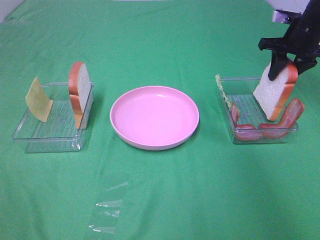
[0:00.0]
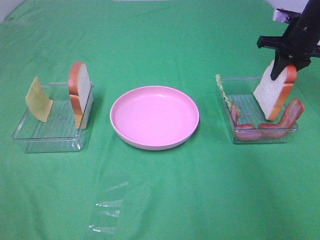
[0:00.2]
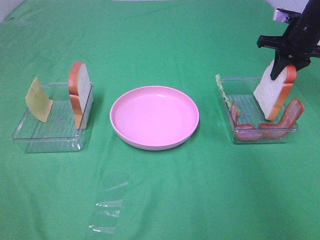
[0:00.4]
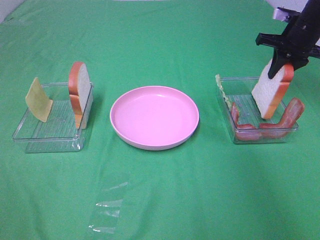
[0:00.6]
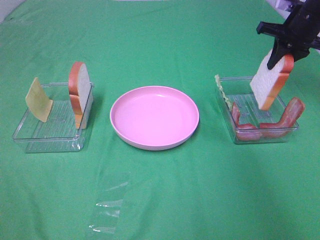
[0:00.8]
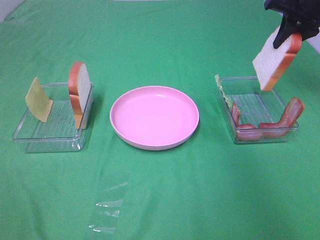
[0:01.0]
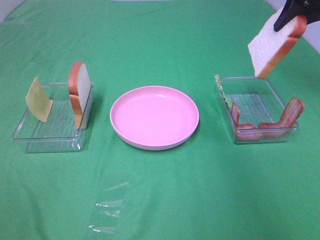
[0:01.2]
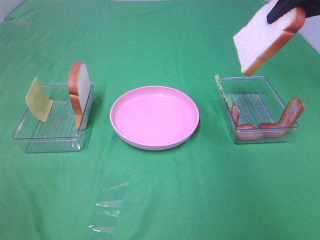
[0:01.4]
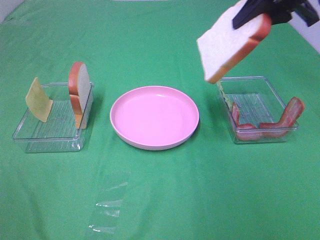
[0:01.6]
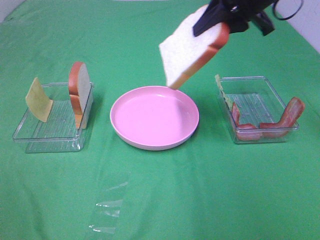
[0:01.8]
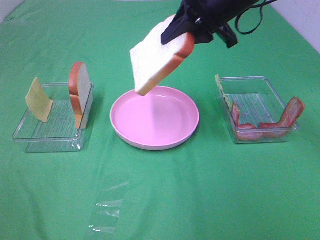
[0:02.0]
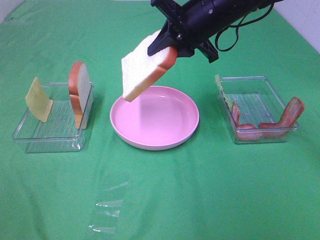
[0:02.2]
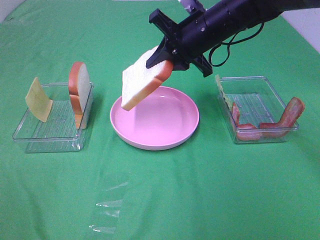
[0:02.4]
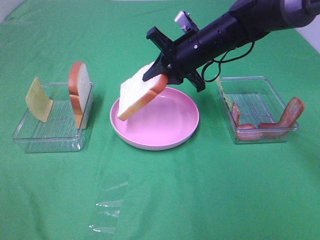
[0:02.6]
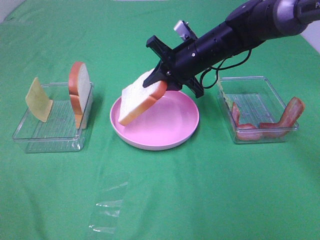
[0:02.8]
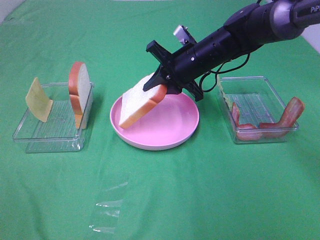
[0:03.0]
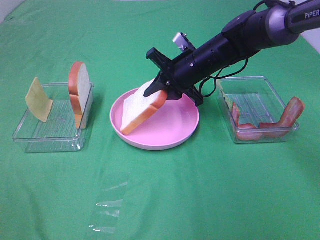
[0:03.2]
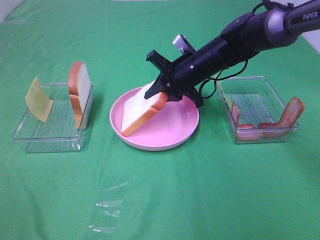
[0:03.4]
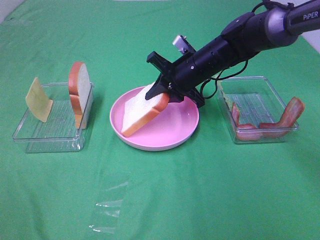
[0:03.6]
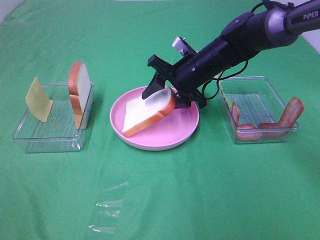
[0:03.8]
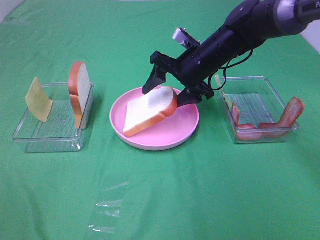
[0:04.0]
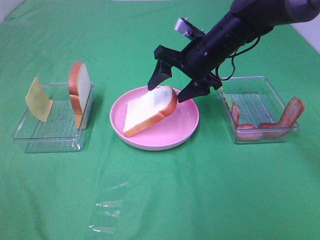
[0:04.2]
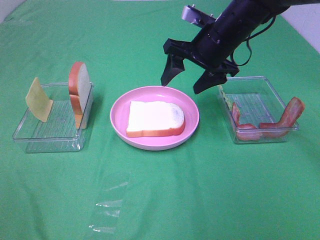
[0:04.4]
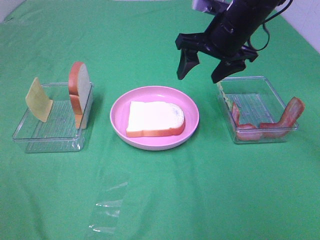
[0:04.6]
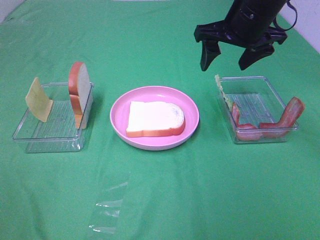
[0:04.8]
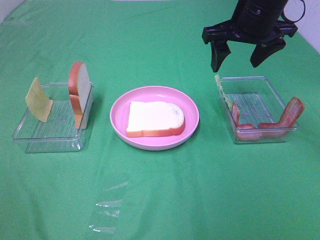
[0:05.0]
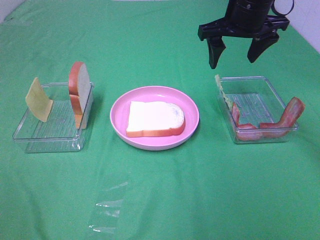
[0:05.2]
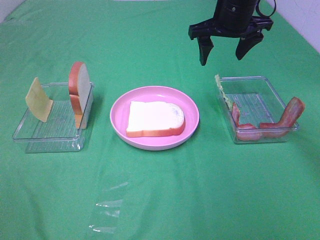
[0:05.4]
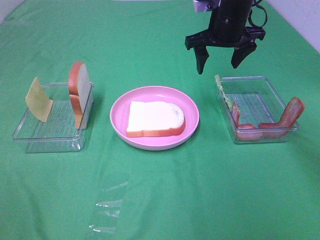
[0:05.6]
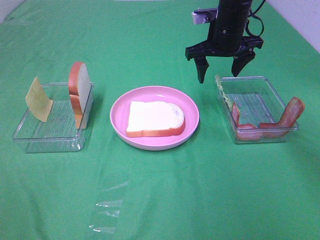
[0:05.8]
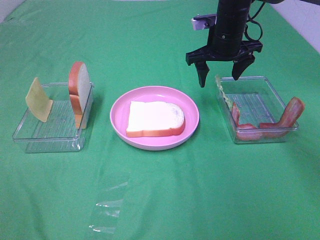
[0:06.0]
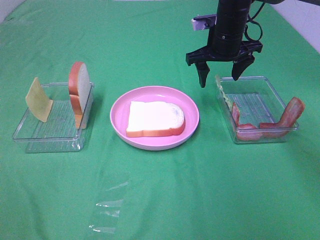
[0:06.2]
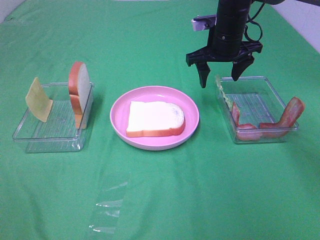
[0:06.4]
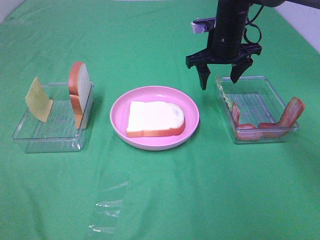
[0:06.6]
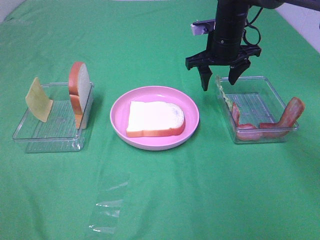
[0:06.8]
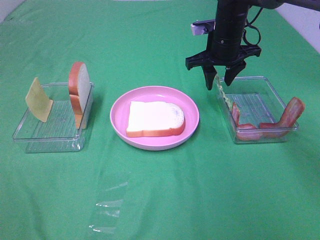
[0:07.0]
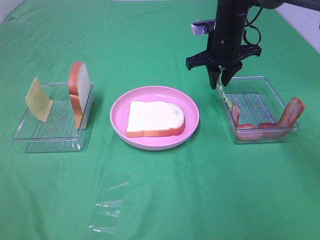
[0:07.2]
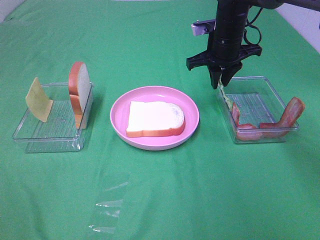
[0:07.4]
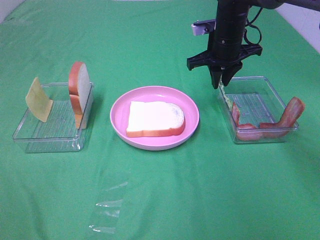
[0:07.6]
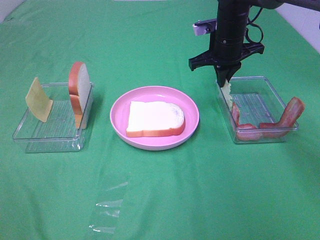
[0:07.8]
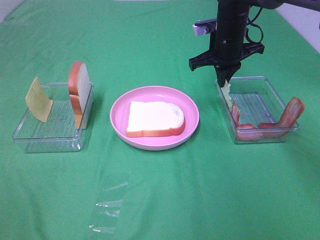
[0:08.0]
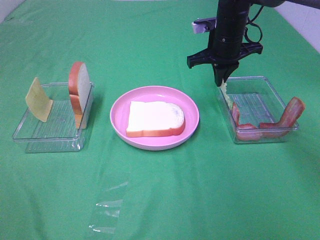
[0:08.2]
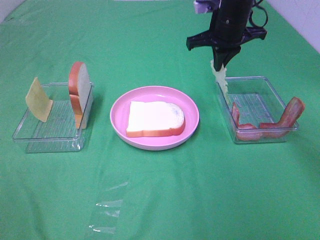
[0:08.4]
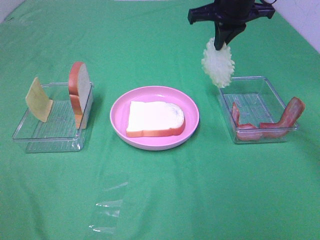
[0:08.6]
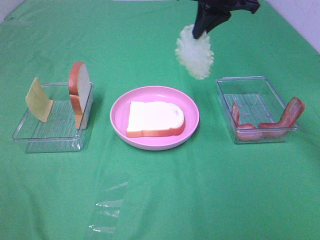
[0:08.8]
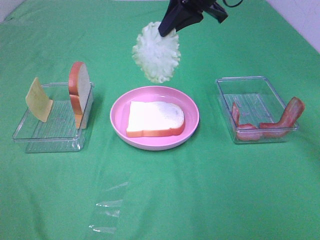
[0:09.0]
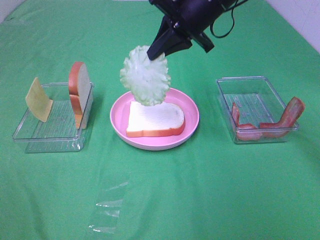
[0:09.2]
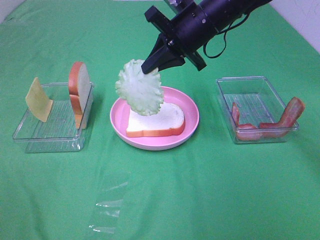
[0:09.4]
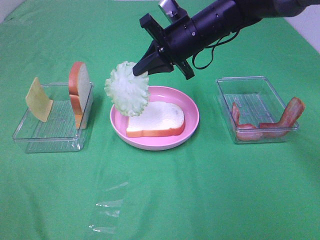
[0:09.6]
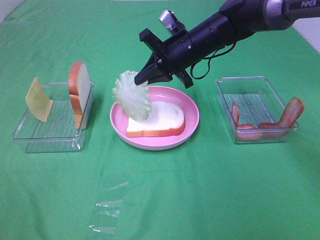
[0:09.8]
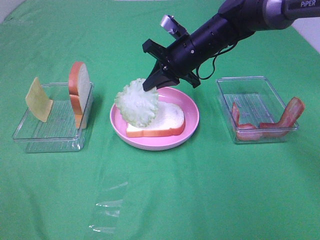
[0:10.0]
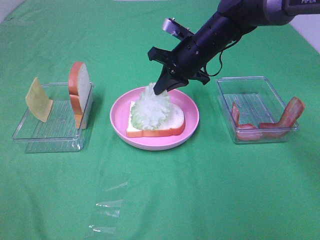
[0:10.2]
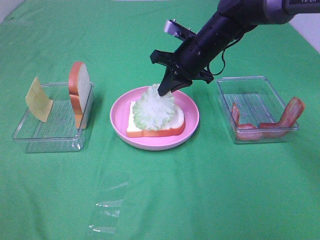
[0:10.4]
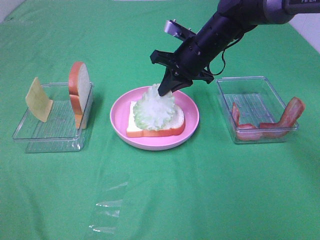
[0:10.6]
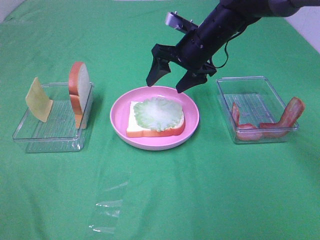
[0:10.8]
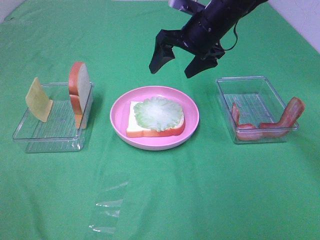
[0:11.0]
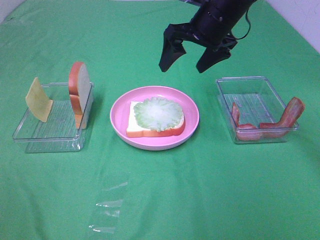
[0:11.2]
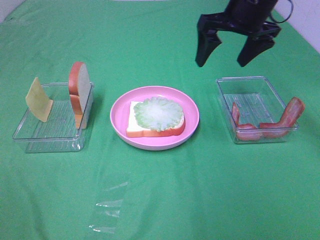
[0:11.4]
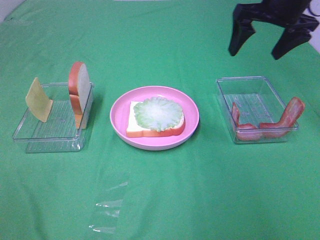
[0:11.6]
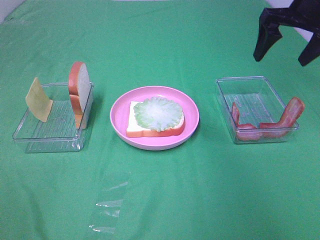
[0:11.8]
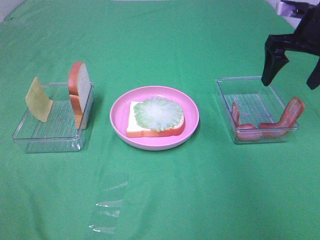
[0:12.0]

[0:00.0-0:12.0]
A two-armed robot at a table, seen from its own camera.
Task of the whole recording: Make sandwiches.
Step, 0.4 to 4.4 s: Right hand:place the bread slice on the plate.
Step, 4.6 to 8.0 s: Right hand:grab the lettuce slice.
Step, 8.2 to 10.8 s: Right hand:place the lettuce slice on the bread slice.
0.0 to 1.6 s: The right gripper heads upward, backward and to the left, covering some 20 cm.
1.6 to 3.0 s: The right gripper is displaced downward and to the left by some 20 cm.
3.0 to 4.4 s: The right gripper moves upward, about 5 cm, and opens up.
4.4 to 6.0 s: The right gripper travels forward by some 5 cm.
6.0 to 7.6 s: The right gripper closes.
7.6 to 9.0 s: The right gripper is displaced upward and backward by roughly 15 cm.
9.0 to 10.4 s: The right gripper travels downward by roughly 15 cm.
10.4 to 12.0 s: The right gripper heads to the right, covering some 20 cm, and opens up.

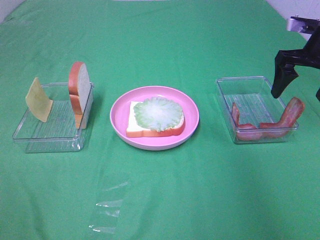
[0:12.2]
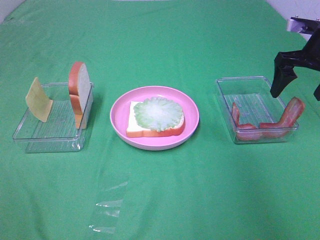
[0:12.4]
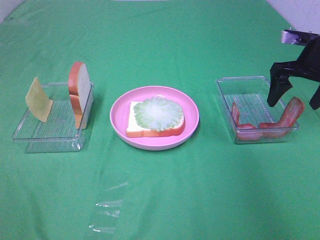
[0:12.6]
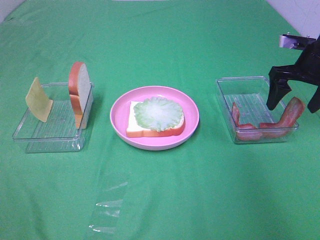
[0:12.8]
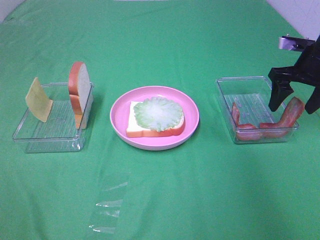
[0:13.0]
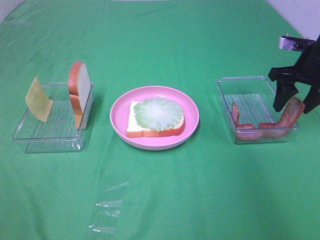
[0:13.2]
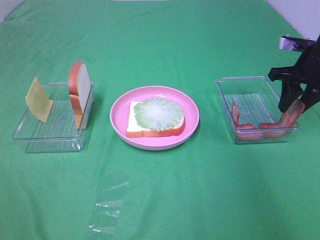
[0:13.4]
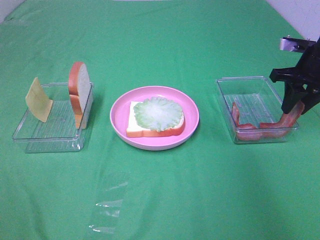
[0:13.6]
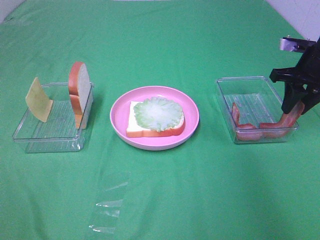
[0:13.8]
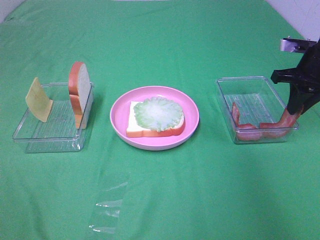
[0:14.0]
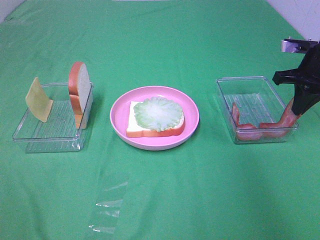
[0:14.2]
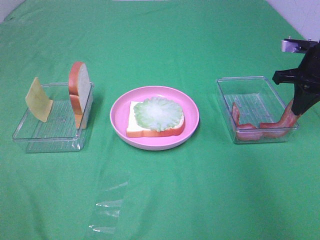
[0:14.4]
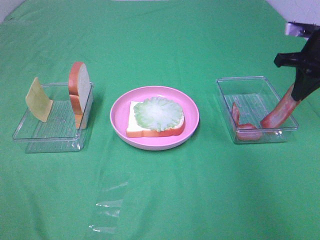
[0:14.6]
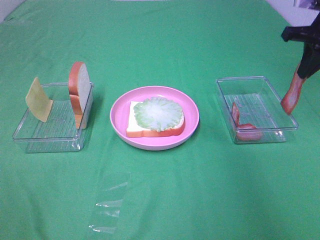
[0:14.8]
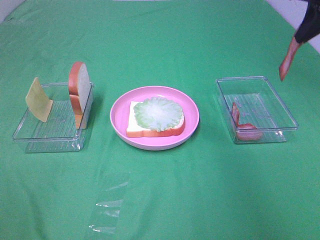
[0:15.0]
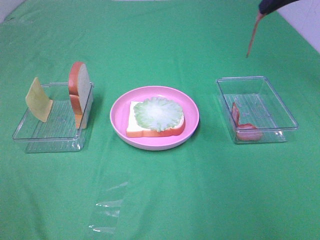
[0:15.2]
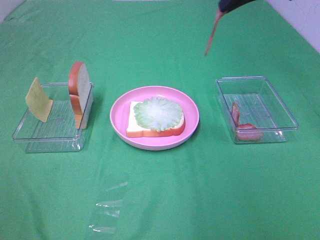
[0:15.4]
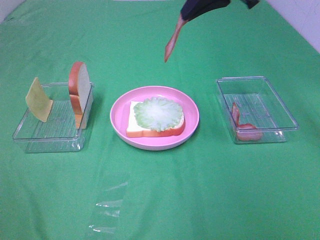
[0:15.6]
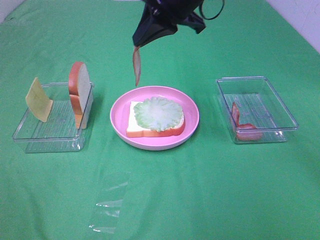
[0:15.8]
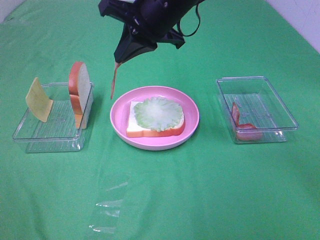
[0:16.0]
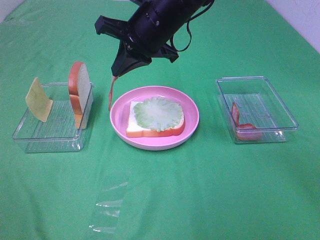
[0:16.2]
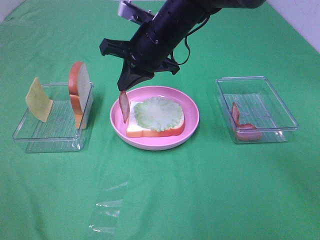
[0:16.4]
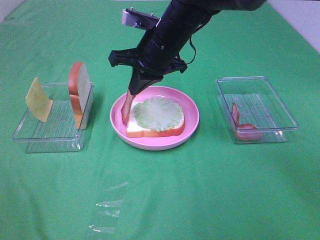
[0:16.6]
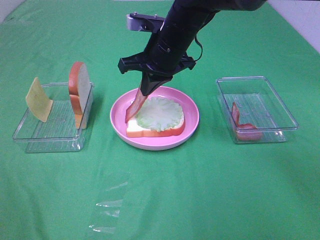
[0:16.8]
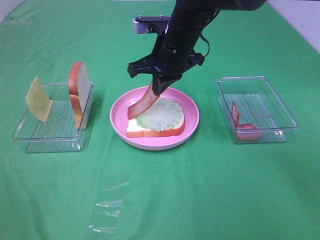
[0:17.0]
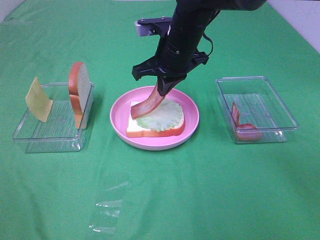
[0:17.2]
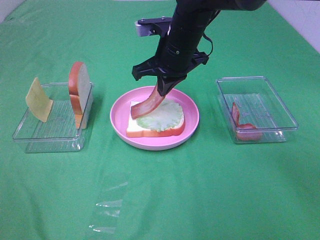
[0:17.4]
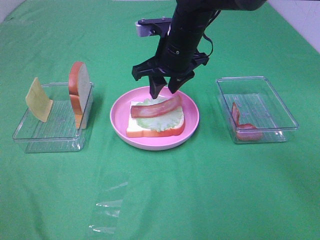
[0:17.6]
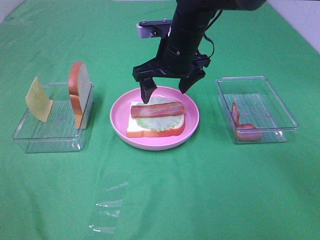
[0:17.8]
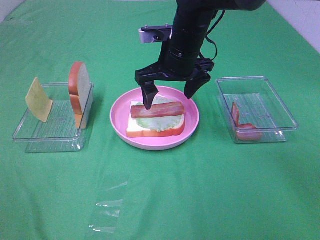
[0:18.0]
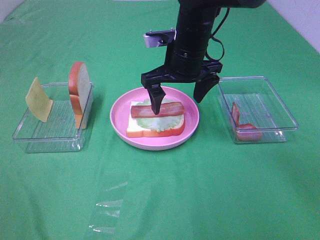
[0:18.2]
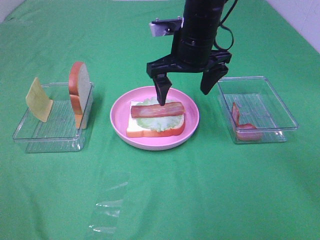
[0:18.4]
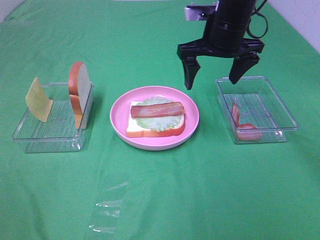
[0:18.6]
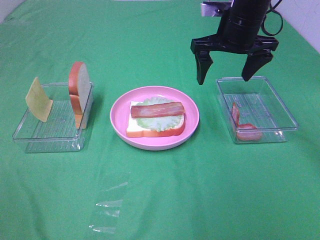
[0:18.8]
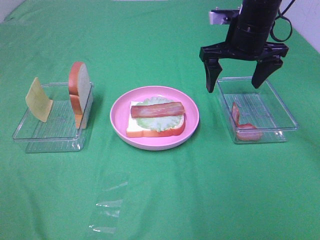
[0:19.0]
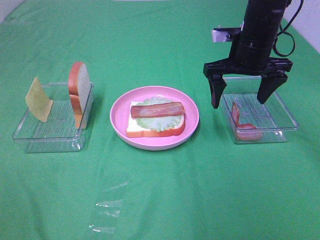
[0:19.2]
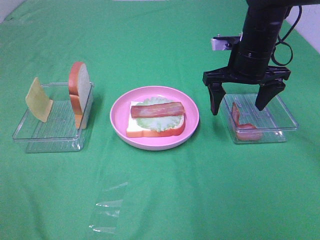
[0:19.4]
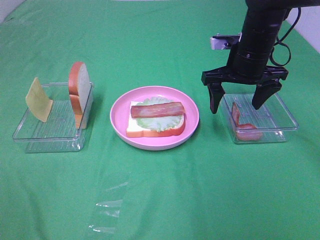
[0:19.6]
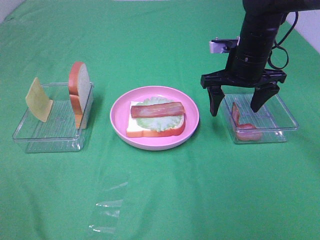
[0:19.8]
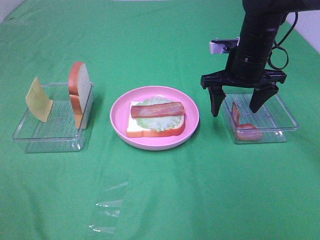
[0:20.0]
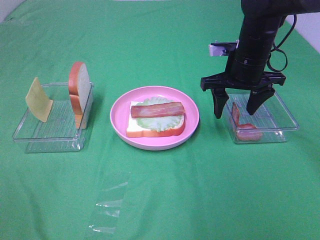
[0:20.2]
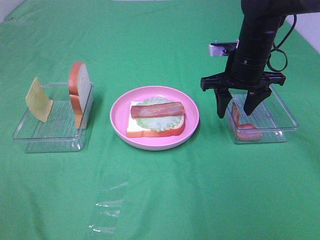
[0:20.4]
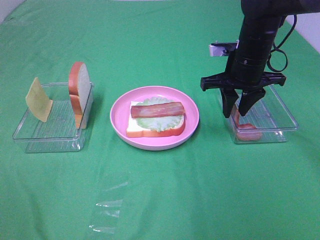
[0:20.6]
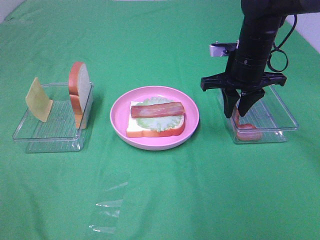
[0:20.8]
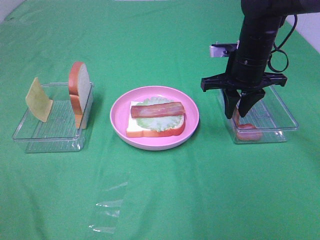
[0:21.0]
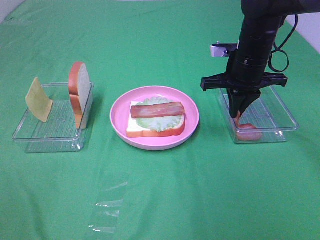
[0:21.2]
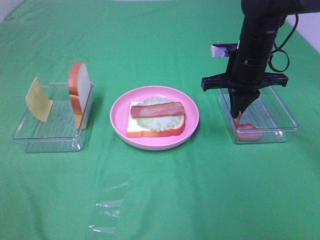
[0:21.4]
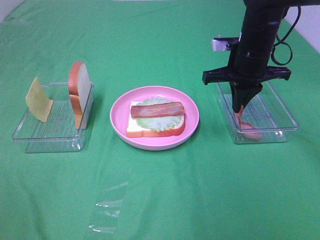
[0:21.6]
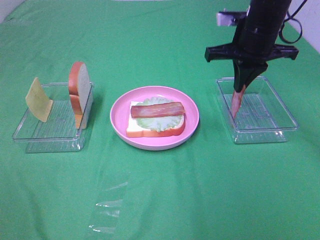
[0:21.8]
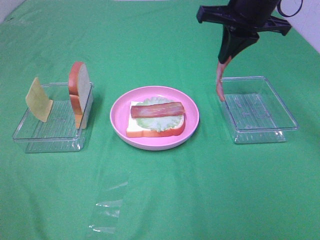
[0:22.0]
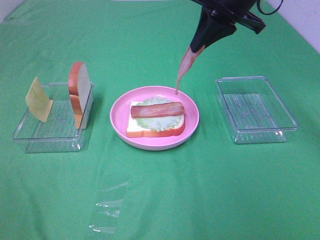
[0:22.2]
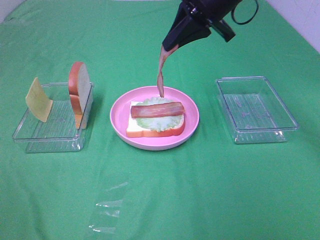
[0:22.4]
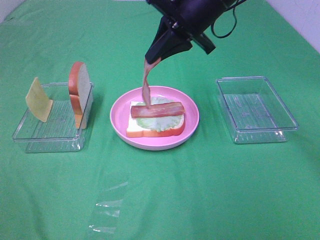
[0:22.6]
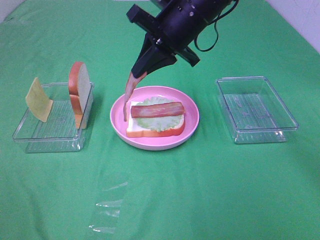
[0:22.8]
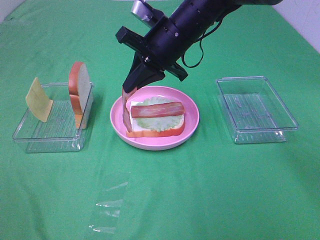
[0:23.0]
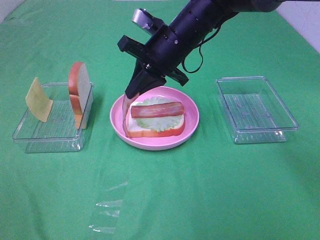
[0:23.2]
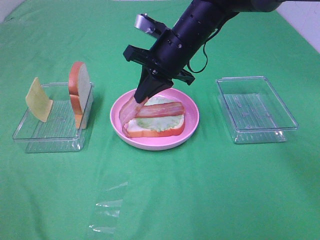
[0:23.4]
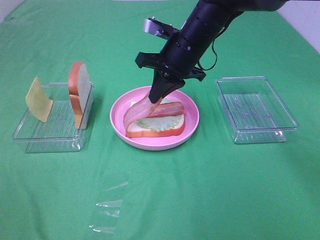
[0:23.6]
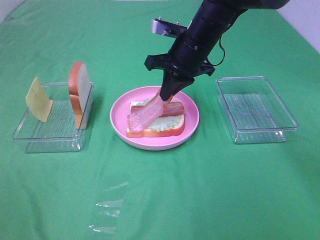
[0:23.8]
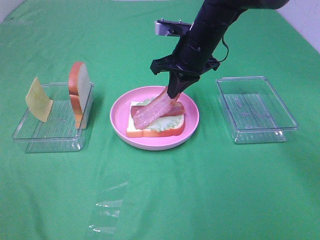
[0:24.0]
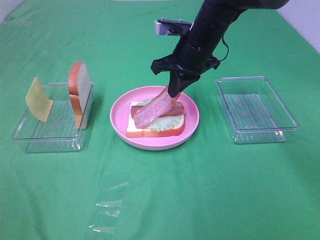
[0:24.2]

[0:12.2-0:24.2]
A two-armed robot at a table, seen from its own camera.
Task of the whole recording: Make sandwiches.
Step, 12.2 to 14.4 s: Right hand:grab the bacon.
Step, 14.6 to 17.6 s: Right hand:place bacon on lettuce slice.
Step, 17.8 to 21.4 s: Right hand:grab the bacon.
12.2 to 13.8 s: The right gripper closes.
13.8 to 15.2 s: The right gripper is displaced upward and to the left by roughly 20 cm, and closes.
15.2 to 16.6 s: The right gripper shifts approximately 25 cm to the left and downward.
16.6 to 18.2 s: The right gripper opens.
18.2 to 19.8 s: The right gripper heads to the right, covering about 10 cm.
19.8 to 21.2 s: The right gripper closes its fingers.
21.2 to 22.6 s: The right gripper is displaced upward and to the left by some 15 cm.
22.6 to 24.2 s: The right gripper travels downward by approximately 10 cm.
